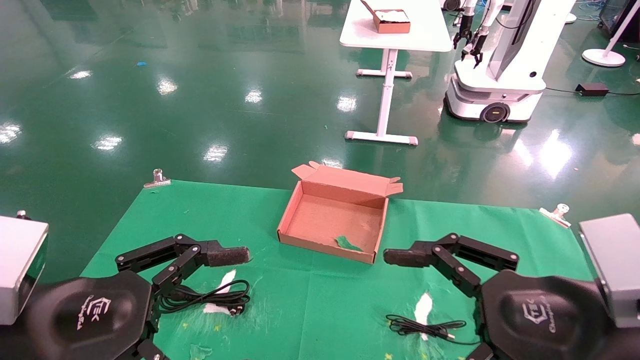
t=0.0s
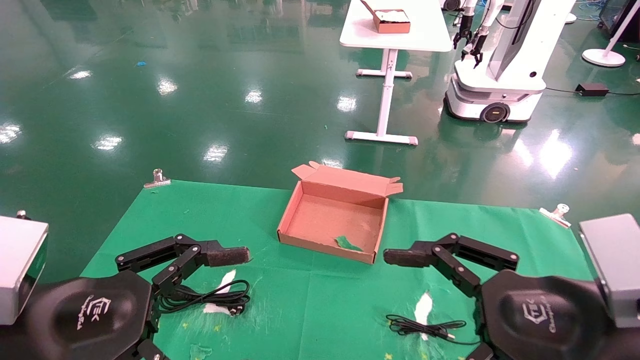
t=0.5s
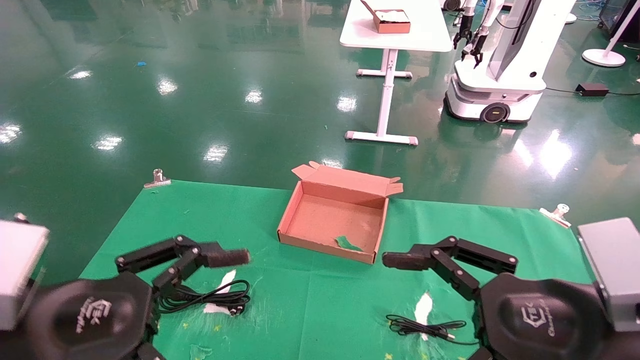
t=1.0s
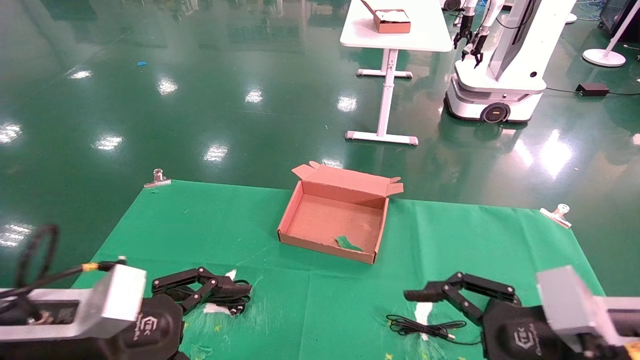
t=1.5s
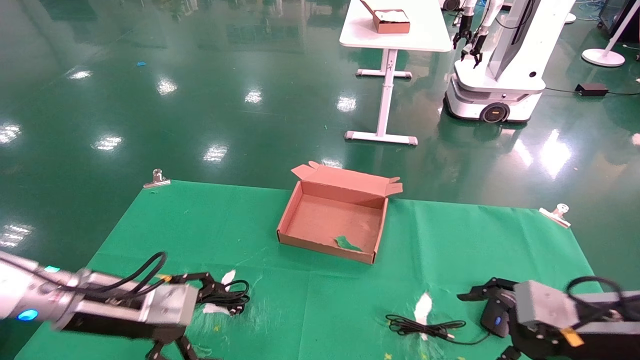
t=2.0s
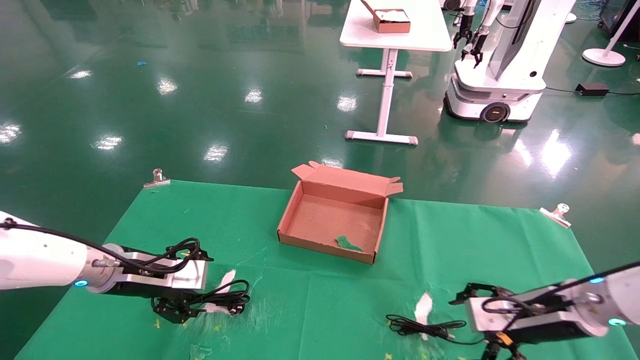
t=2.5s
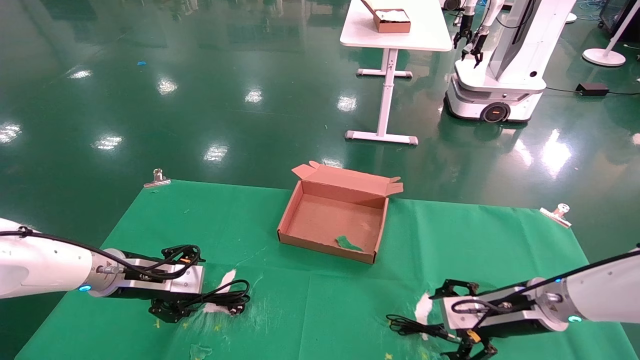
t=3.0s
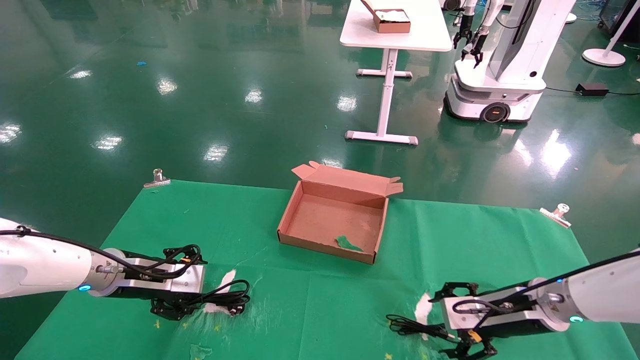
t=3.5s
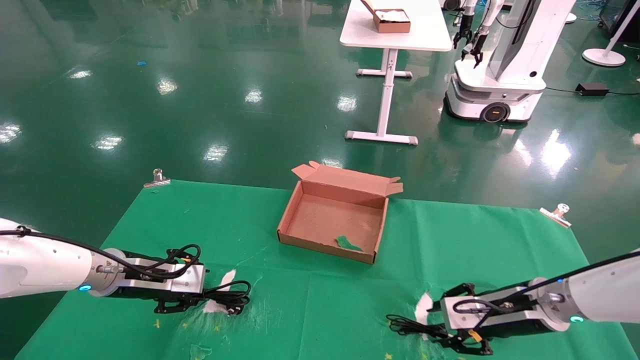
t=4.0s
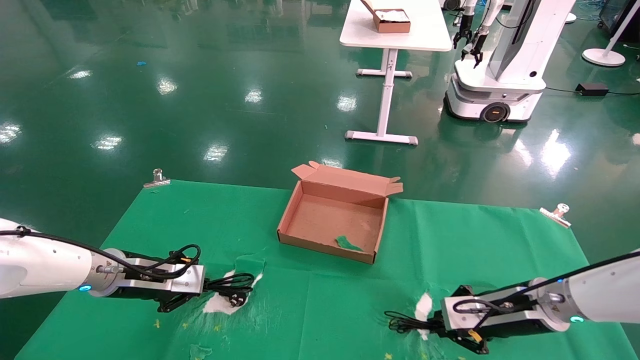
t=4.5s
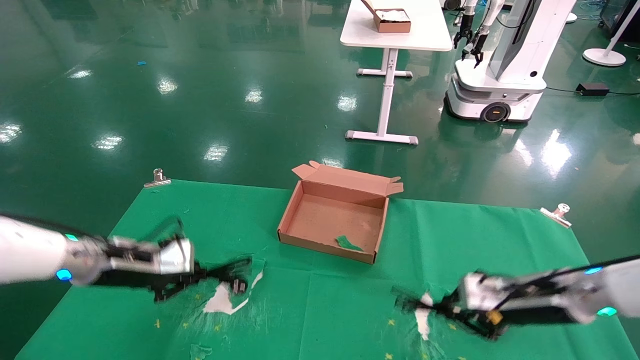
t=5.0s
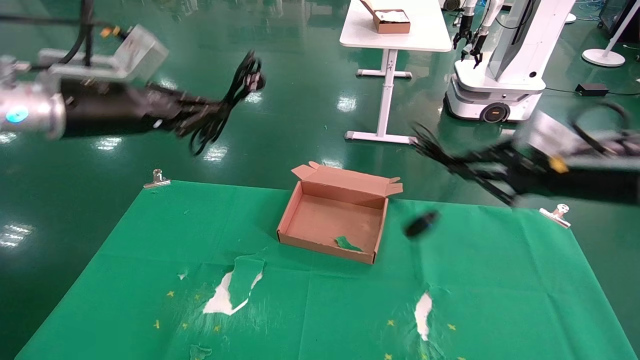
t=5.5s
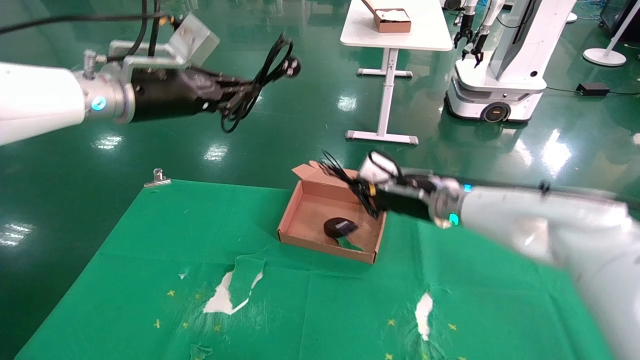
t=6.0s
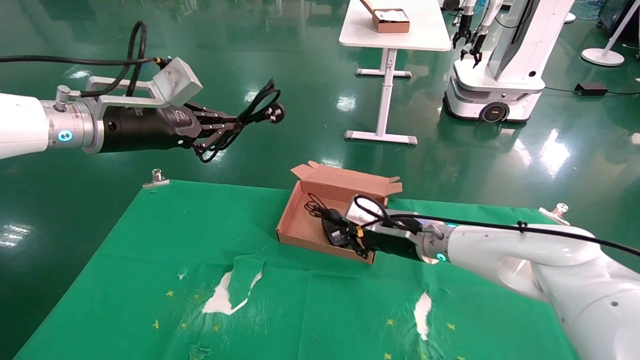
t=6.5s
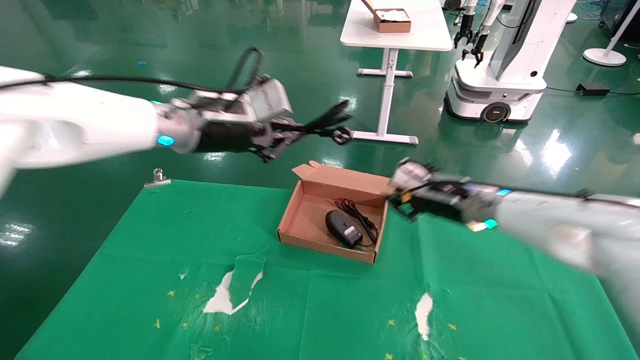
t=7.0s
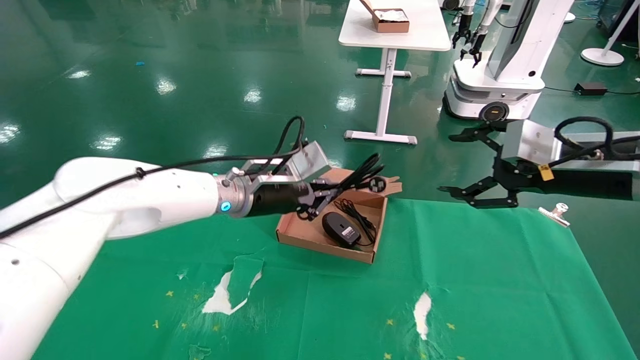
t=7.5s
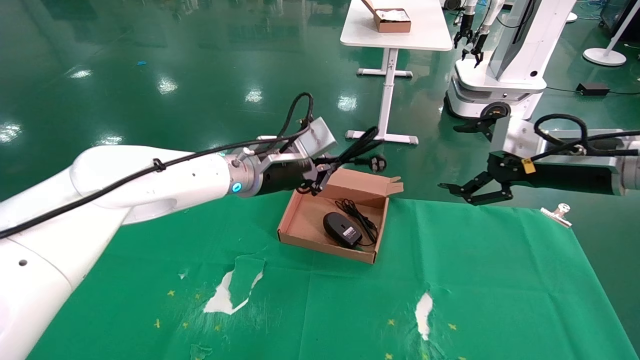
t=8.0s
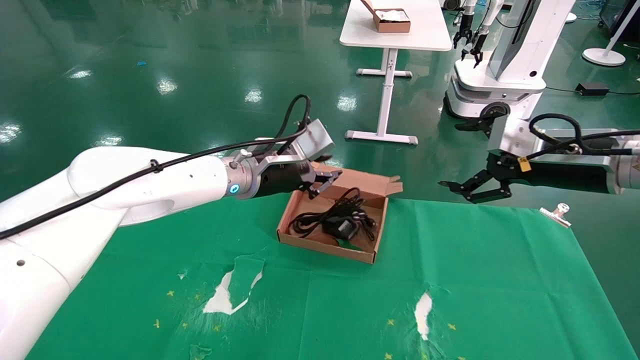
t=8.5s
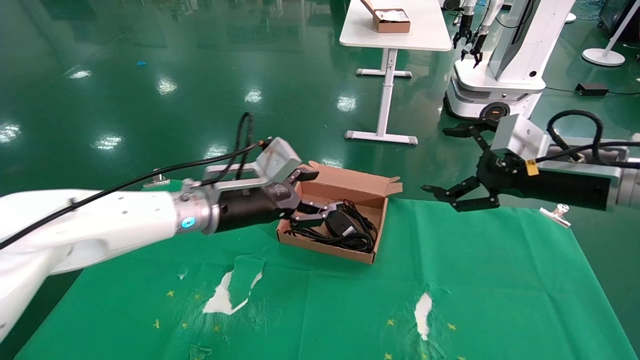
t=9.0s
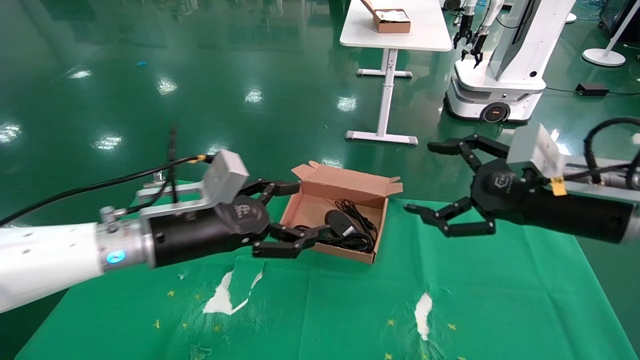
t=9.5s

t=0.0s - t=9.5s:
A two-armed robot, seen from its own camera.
Step, t=1.0s - t=5.0s: Grab and lift both the mouse and power cord from the accessory packaging area at the same time.
Step, t=5.5s - t=8.5s: Place the mouse and power cord into the box.
t=0.0s - t=2.0s: The left gripper moves forward, approximately 15 cm; the right gripper travels forward, to the right and downward by some 15 cm.
t=2.0s - t=4.0s: Both grippers travel together forward, about 10 cm. The left gripper closes its fingers. Meanwhile the right gripper closes its fingers.
t=4.0s - t=5.5s: Both grippers travel together upward, about 20 cm. The left gripper closes up, while the right gripper closes.
t=5.5s - t=7.5s: The right gripper travels to the left and back again, approximately 15 cm each way, and opens its fingers, while the left gripper is displaced to the right and downward by roughly 20 cm.
t=7.5s - t=9.5s: The right gripper moves backward, about 5 cm, and opens its fingers. The left gripper is displaced backward and to the left by some 15 cm, and opens up.

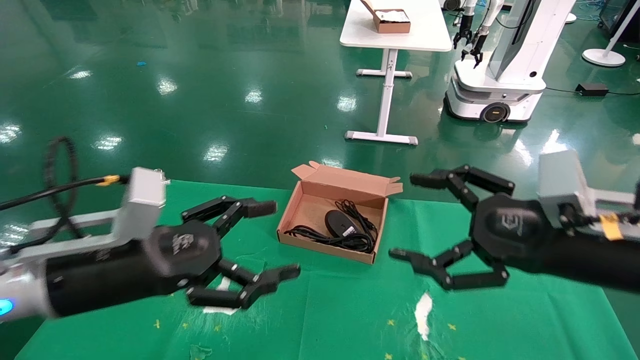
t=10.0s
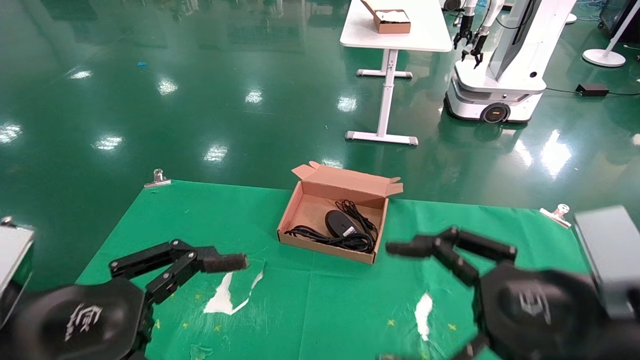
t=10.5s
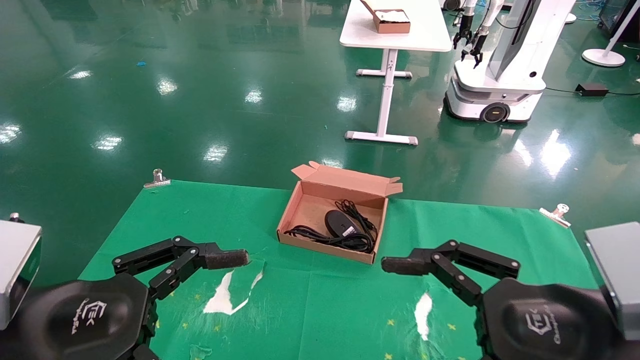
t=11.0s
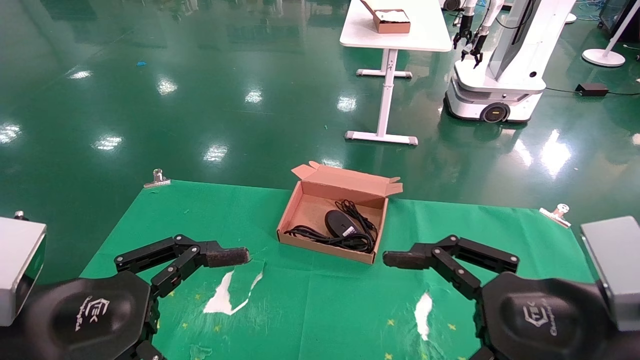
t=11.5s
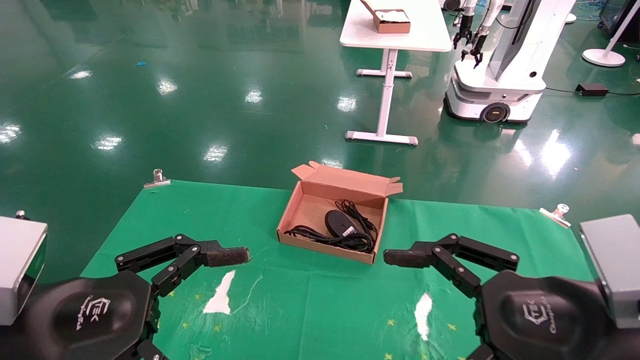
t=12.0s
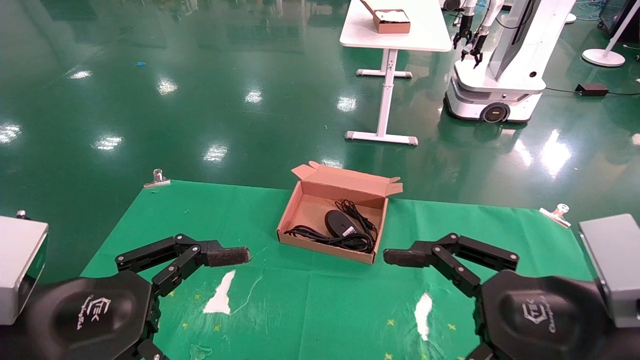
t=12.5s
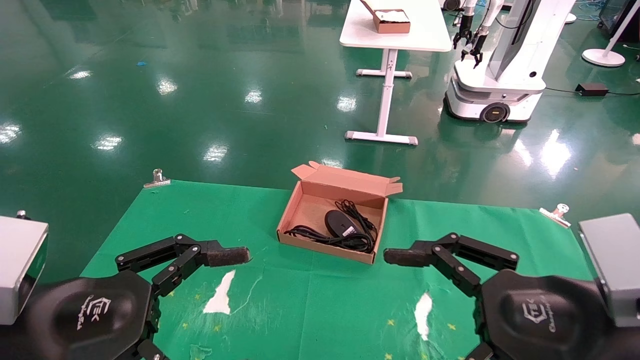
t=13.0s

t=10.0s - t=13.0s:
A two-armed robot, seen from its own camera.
t=10.0s - t=11.5s: The grippers both shift backward by about 10 cm.
t=11.5s - t=13.0s: The two grippers keep their place.
